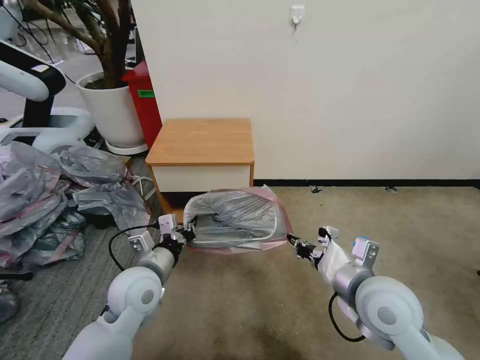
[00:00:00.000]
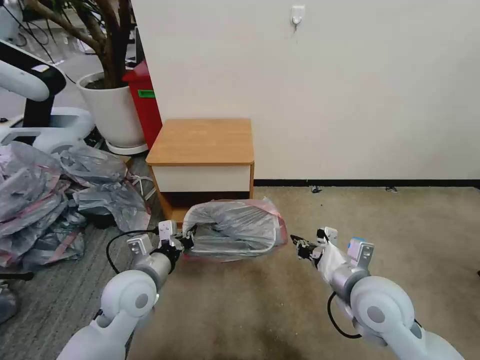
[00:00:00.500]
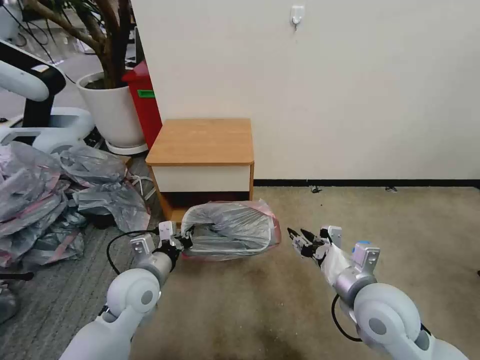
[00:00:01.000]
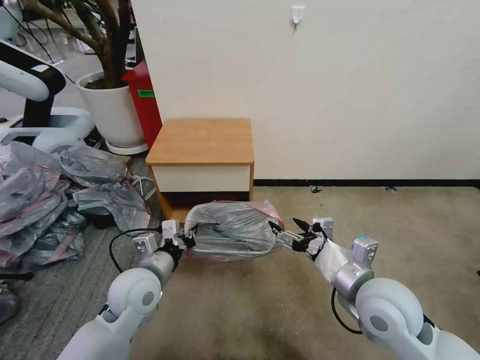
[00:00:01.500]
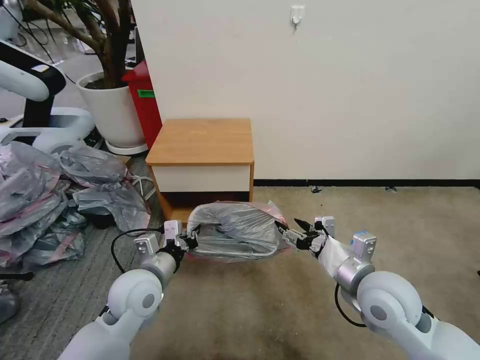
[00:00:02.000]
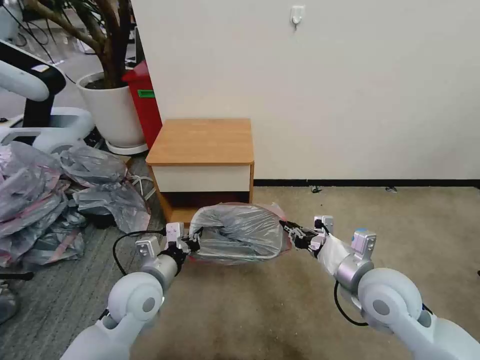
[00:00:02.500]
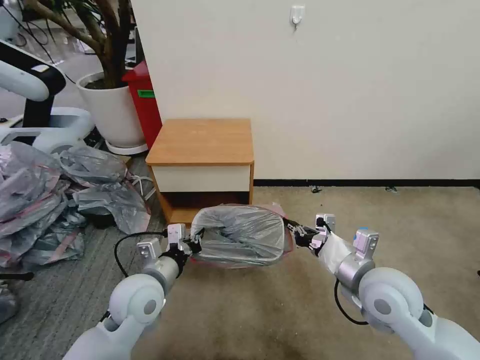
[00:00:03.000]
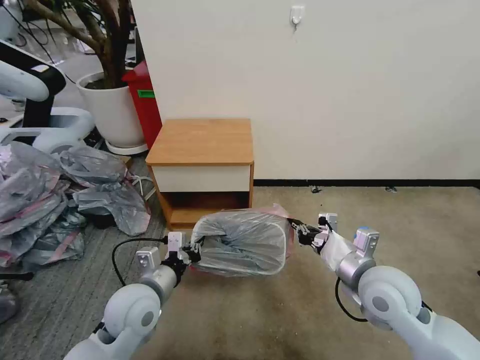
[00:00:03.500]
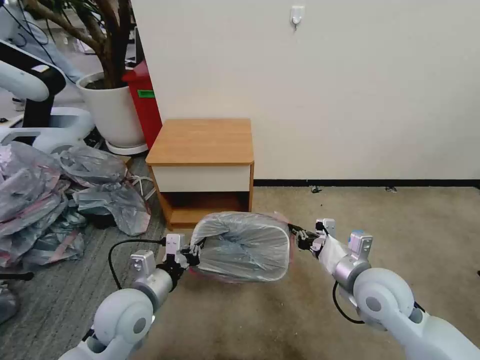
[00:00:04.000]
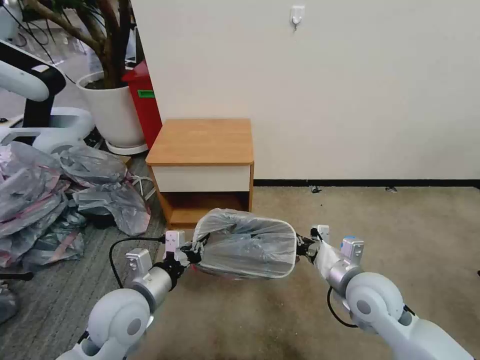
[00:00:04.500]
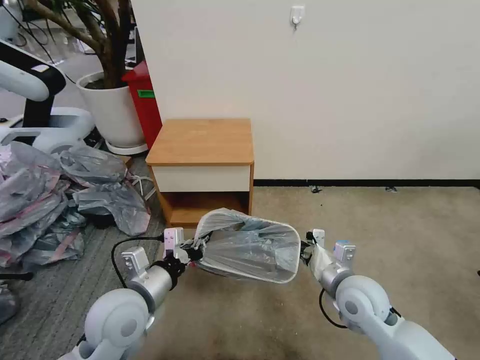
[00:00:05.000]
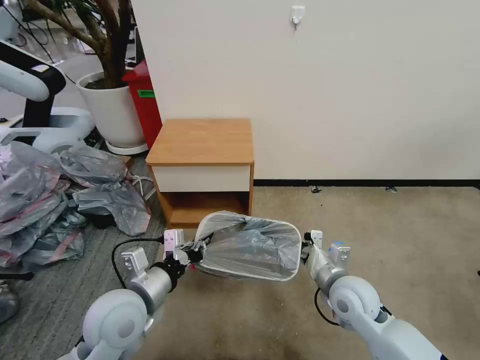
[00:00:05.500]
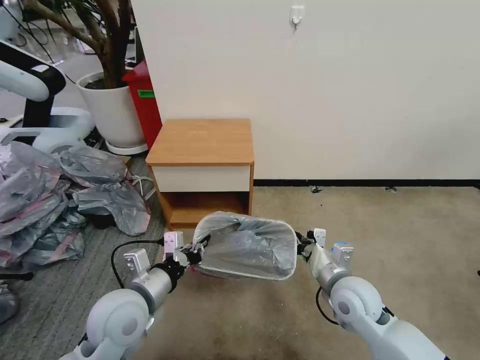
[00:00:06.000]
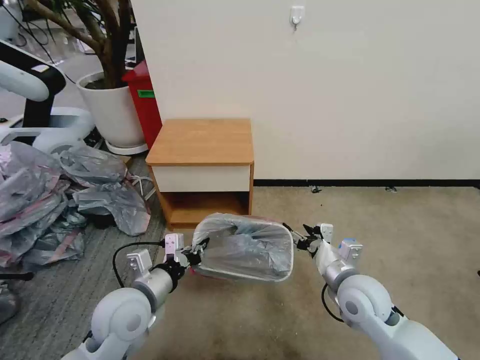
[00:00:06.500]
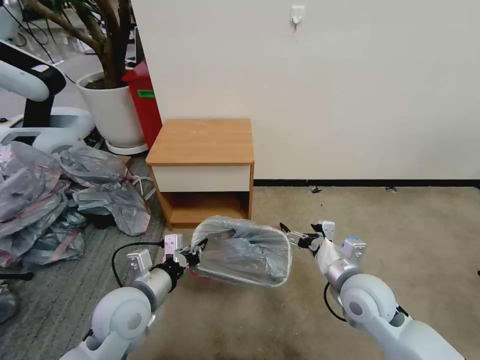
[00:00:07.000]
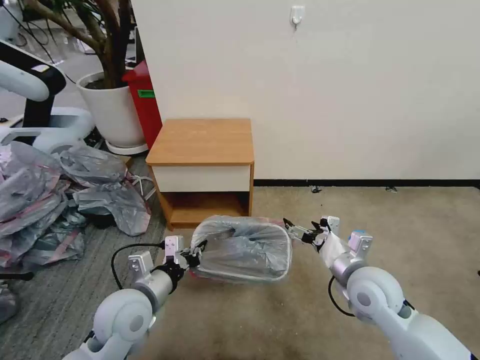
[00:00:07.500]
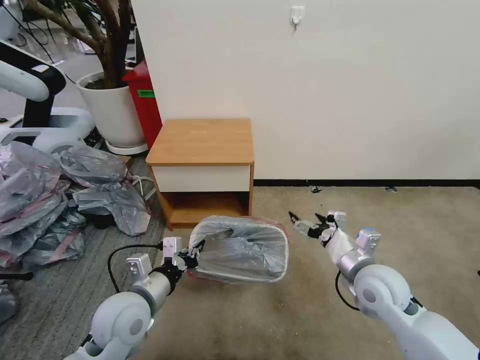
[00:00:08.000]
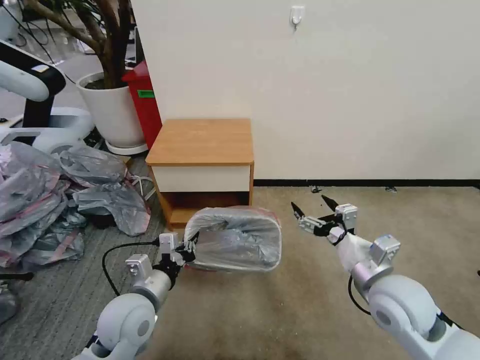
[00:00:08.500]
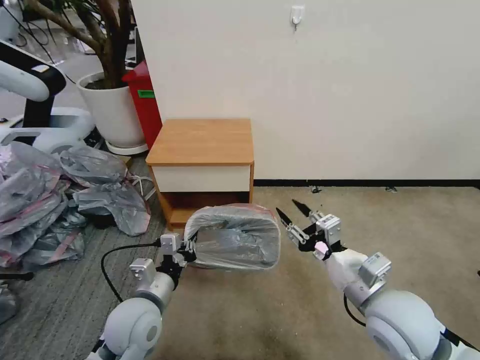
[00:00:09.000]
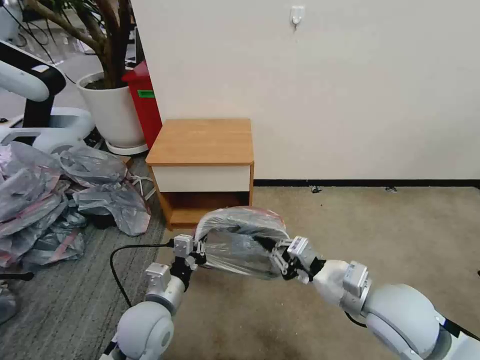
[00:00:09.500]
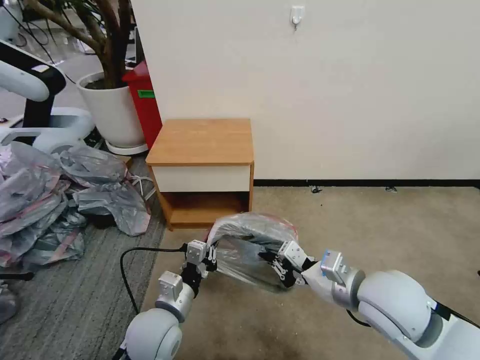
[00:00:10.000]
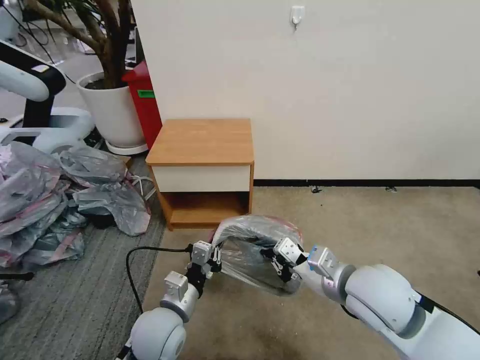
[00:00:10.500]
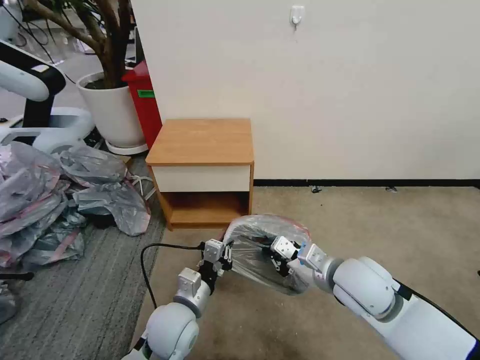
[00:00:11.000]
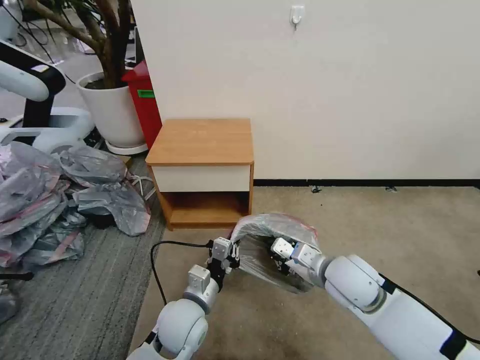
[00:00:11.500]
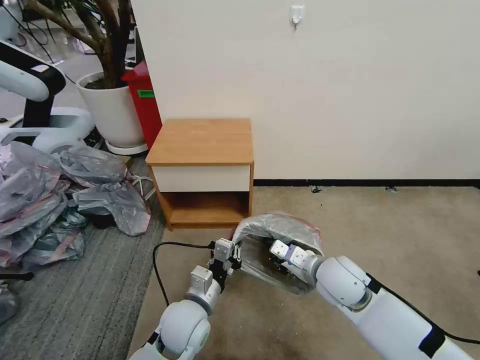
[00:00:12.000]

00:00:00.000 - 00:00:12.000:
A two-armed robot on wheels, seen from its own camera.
Task of the whole recording: Pick up the garbage bag from the table and place it over the trash can.
00:00:00.000 - 00:00:02.000: The right gripper opens.
00:00:02.000 - 00:00:04.000: The right gripper closes.
00:00:04.000 - 00:00:06.000: The right gripper shifts some 5 cm downward.
00:00:06.000 - 00:00:08.000: The right gripper moves roughly 5 cm, and opens.
00:00:08.000 - 00:00:10.000: The right gripper goes some 10 cm upward and backward, and closes up, while the left gripper is displaced to the right by about 5 cm.
00:00:10.000 - 00:00:12.000: The left gripper is displaced to the right by roughly 5 cm; the right gripper goes some 10 cm downward and forward.

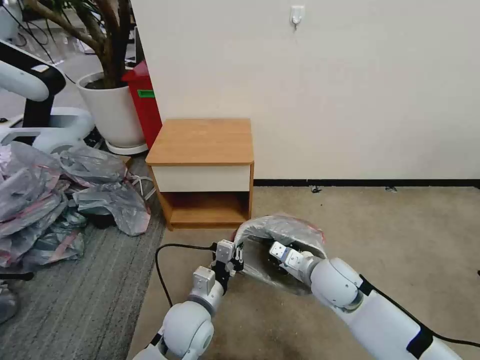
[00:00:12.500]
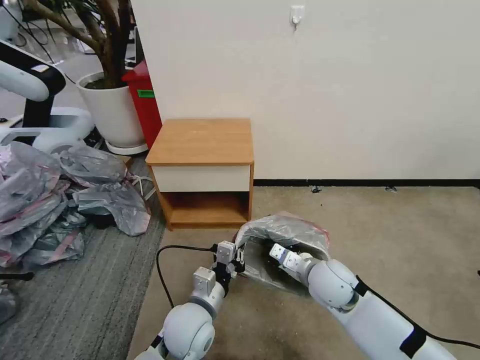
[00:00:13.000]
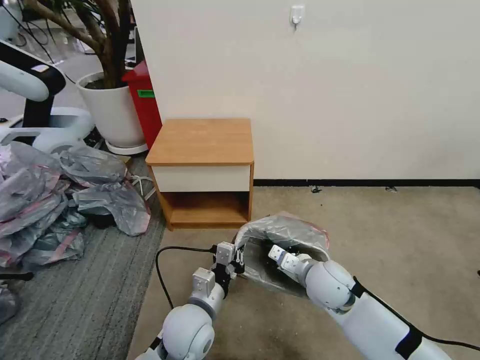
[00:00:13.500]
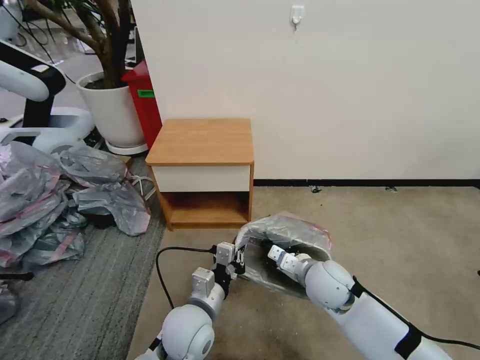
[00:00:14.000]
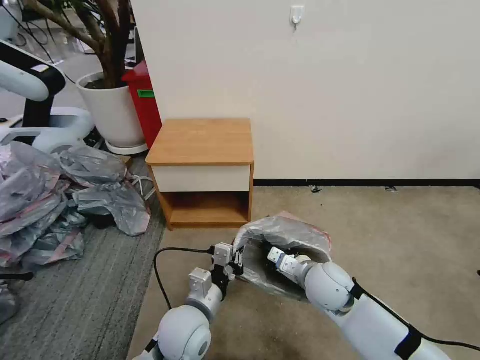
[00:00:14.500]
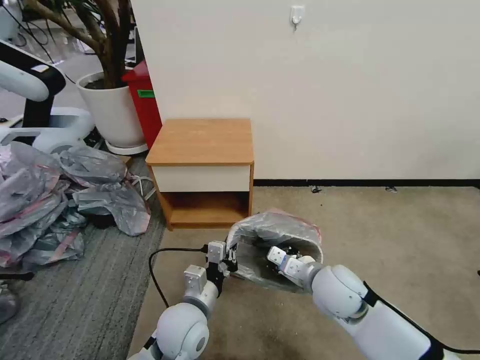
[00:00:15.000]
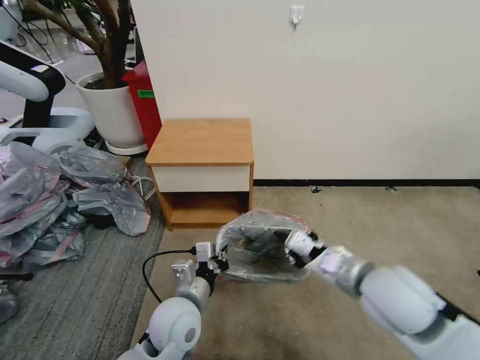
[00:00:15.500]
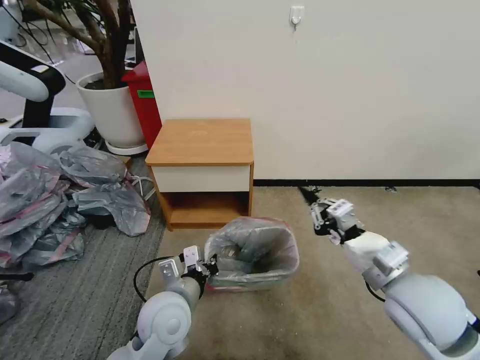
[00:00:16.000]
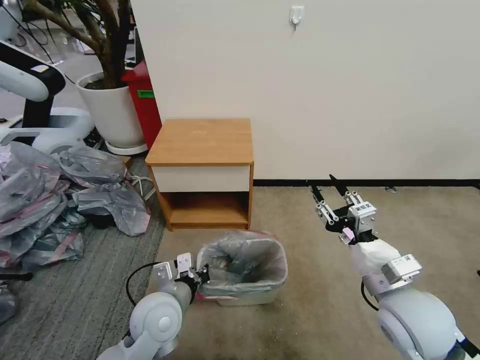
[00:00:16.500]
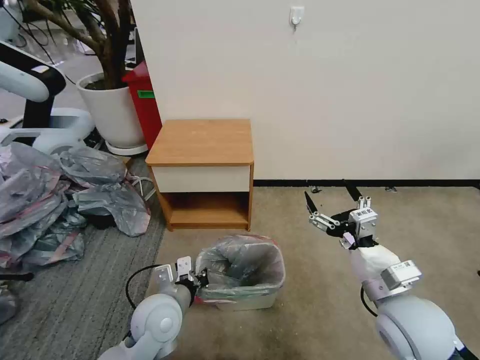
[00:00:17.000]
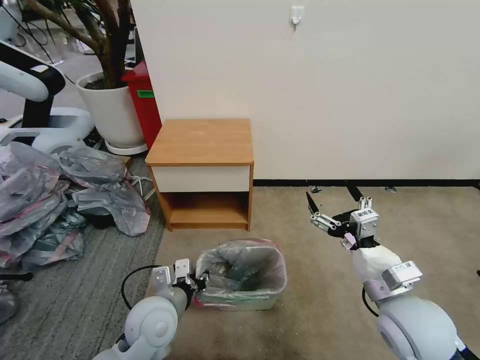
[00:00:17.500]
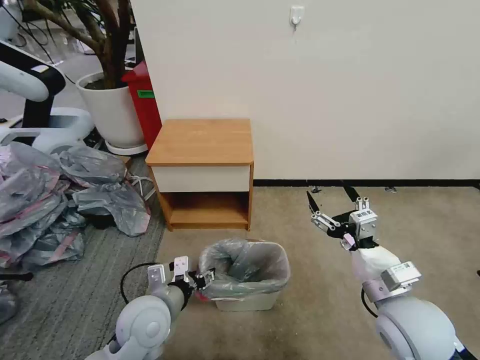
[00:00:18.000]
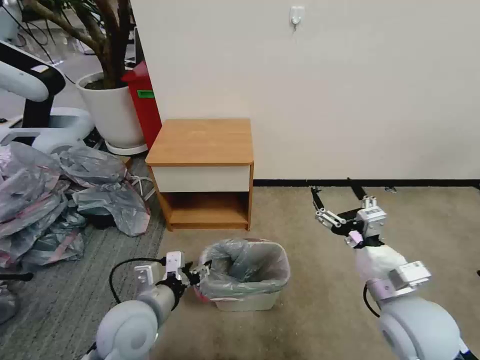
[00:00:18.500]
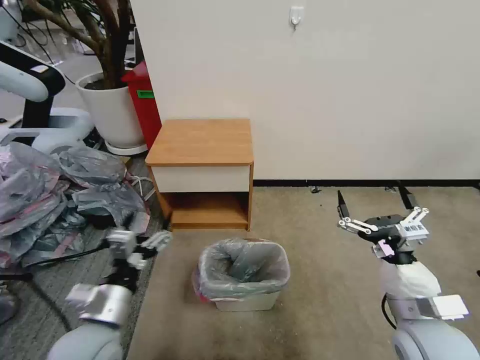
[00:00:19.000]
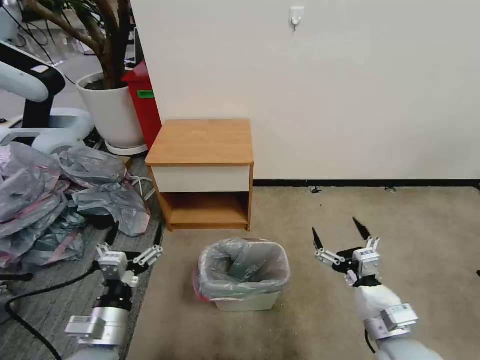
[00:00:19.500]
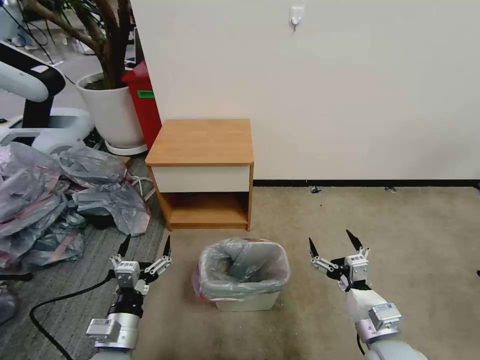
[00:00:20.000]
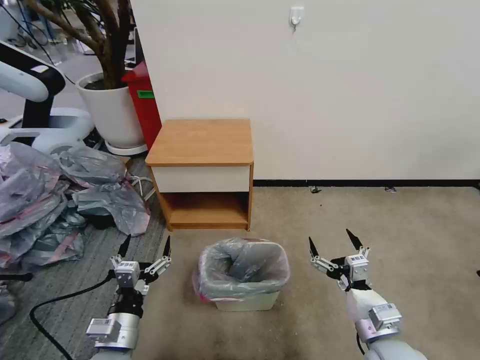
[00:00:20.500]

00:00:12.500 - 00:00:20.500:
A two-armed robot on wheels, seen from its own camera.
Task of the whole recording: Pick up the garbage bag from the table and place it over the trash can.
00:00:12.500 - 00:00:14.500: The grippers move only a little.
00:00:14.500 - 00:00:16.500: The left gripper is displaced to the left by about 5 cm; the right gripper is displaced upward, backward and to the right by some 15 cm, and opens its fingers.
00:00:16.500 - 00:00:18.500: The left gripper ends up about 5 cm from where it was, and opens. Meanwhile the right gripper opens up.
00:00:18.500 - 00:00:20.500: The right gripper shifts roughly 10 cm downward; the left gripper moves downward and backward, some 10 cm, and opens up.
